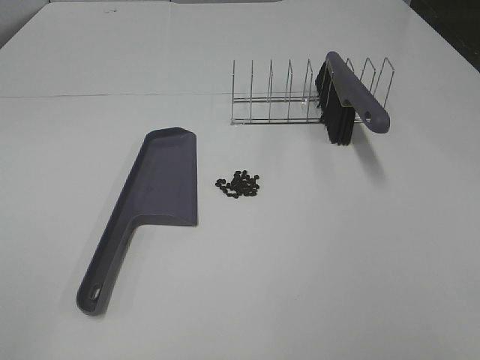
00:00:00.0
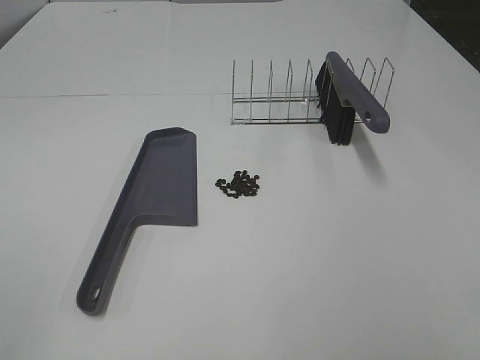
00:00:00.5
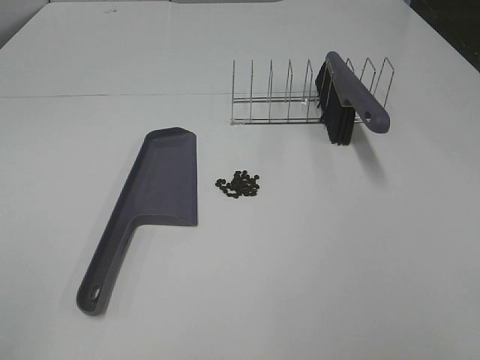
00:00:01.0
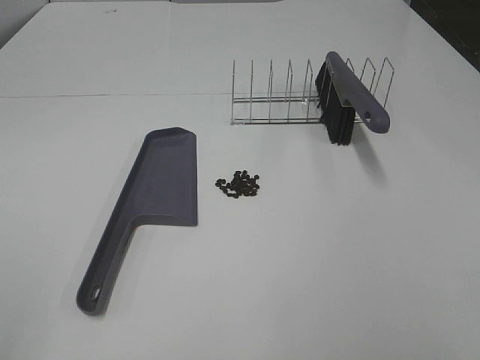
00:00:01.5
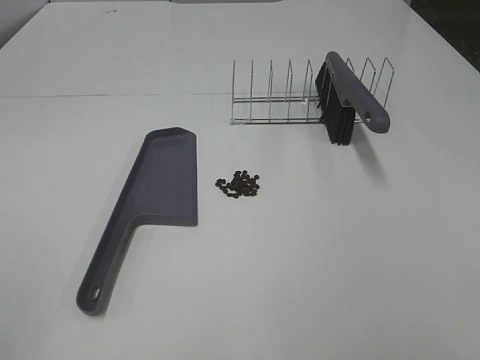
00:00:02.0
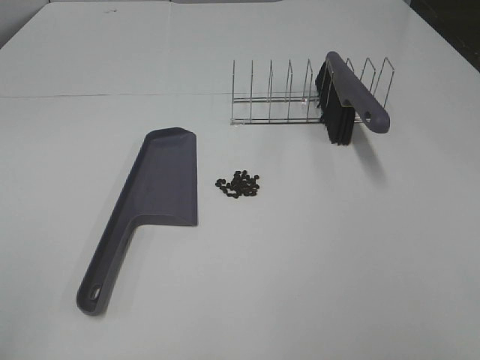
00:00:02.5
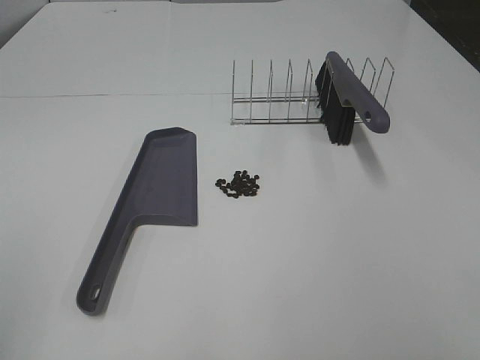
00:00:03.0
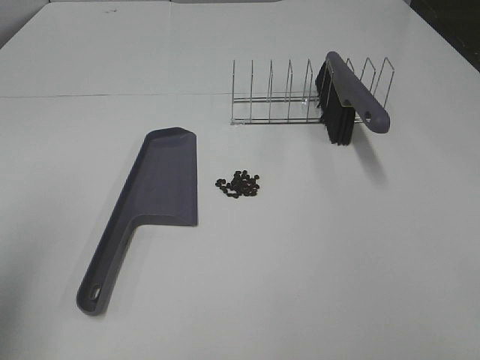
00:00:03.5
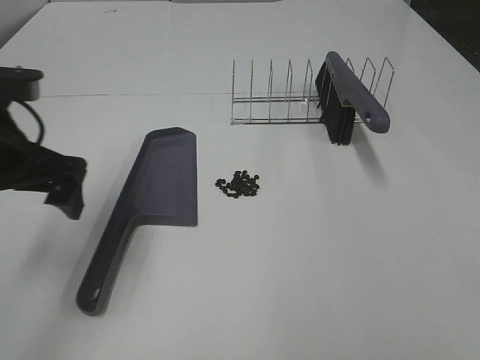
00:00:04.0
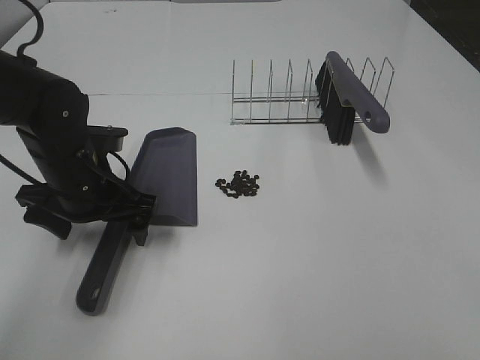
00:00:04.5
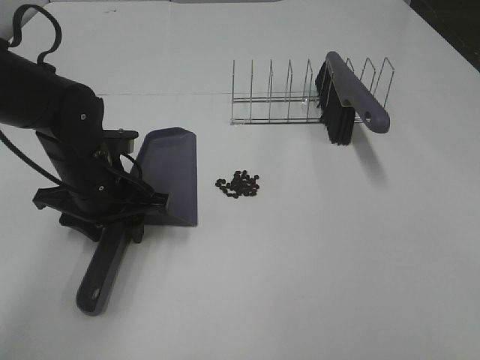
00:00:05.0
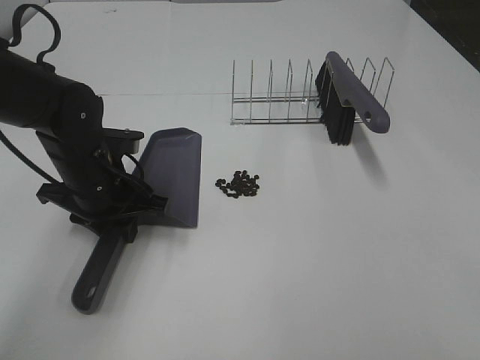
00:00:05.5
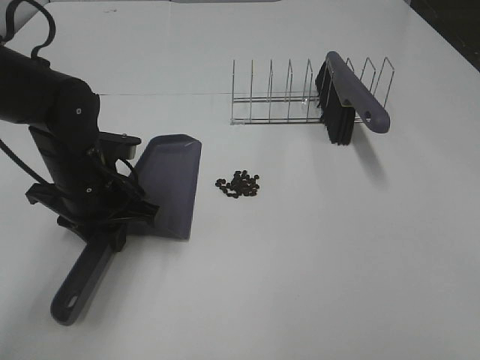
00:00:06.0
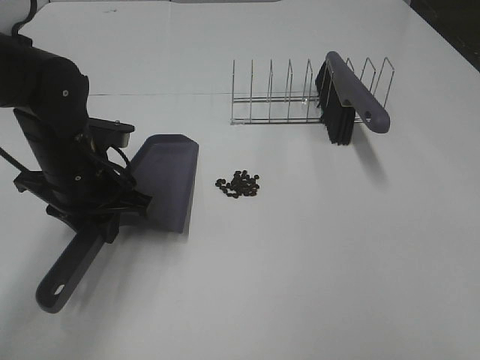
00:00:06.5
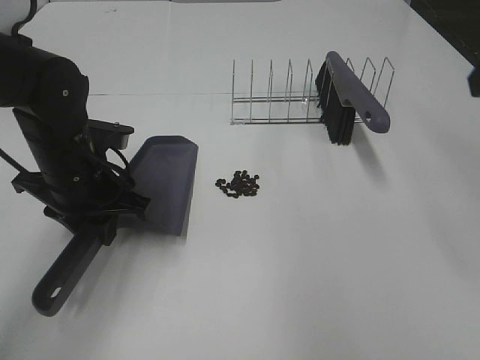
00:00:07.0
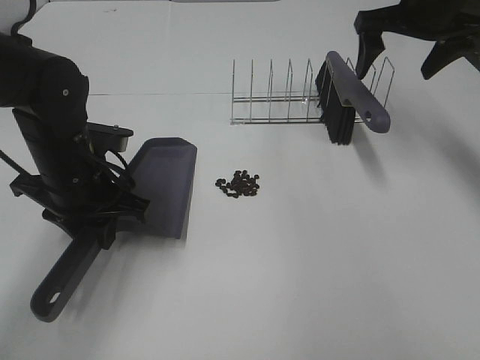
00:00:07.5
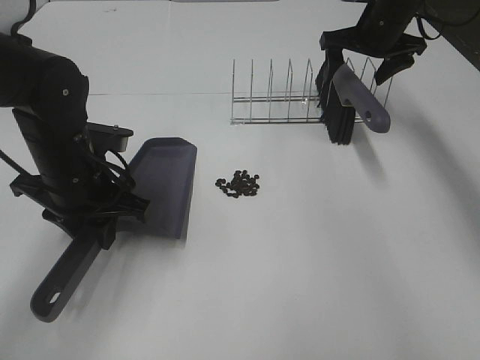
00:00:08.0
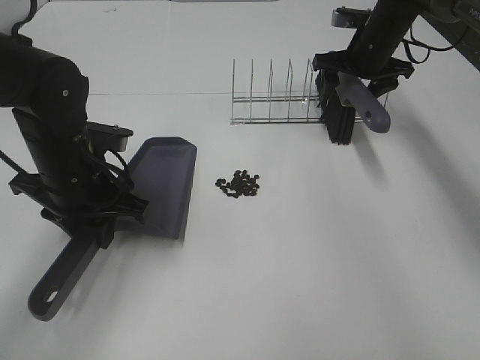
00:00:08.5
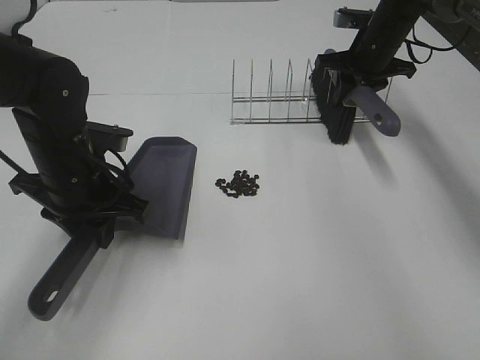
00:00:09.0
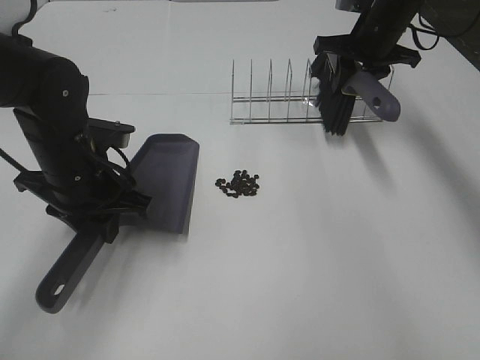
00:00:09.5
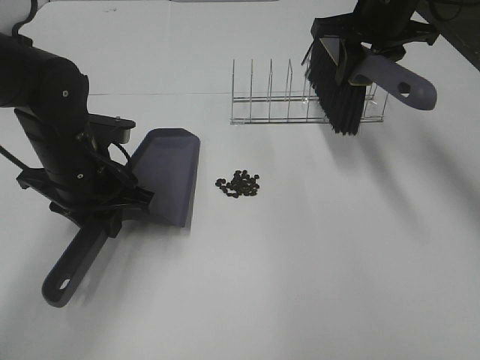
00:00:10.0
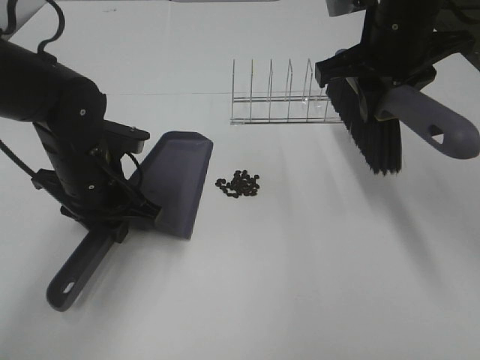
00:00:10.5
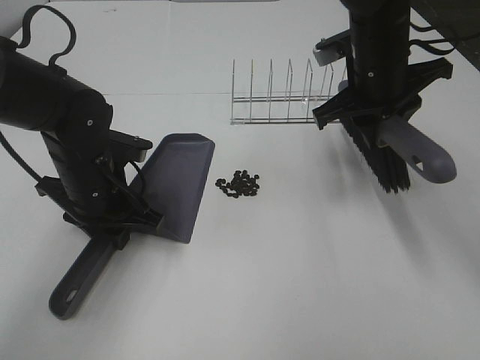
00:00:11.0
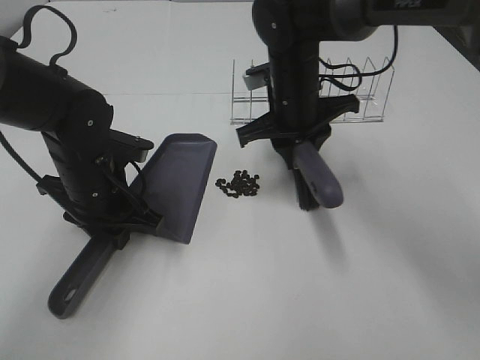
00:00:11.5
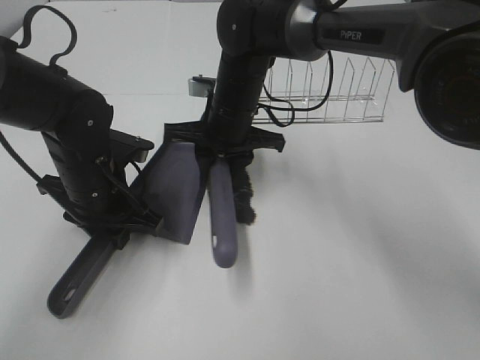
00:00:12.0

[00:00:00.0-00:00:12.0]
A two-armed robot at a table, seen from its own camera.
Task of the whole recording: Sweep Coffee Bean.
Step, 00:00:00.0 to 00:00:05.0: Left hand: grab the dustpan.
Step, 00:00:06.5 to 00:00:08.5: Right hand:grab the broom.
00:00:00.0 to 00:00:02.0: The two grippers keep their place.
00:00:02.0 to 00:00:04.0: The left gripper goes some 30 cm forward and to the right.
00:00:04.0 to 00:00:06.0: The left gripper moves downward and forward, approximately 10 cm, and closes.
00:00:06.0 to 00:00:08.0: The right gripper shifts some 50 cm forward.
00:00:08.0 to 00:00:10.0: The right gripper goes some 10 cm backward and upward, and closes.
00:00:10.0 to 00:00:12.0: The right gripper shifts about 25 cm to the left and downward.

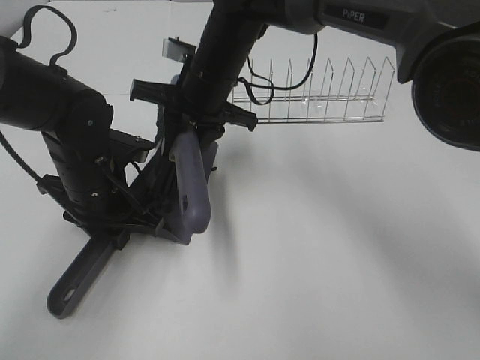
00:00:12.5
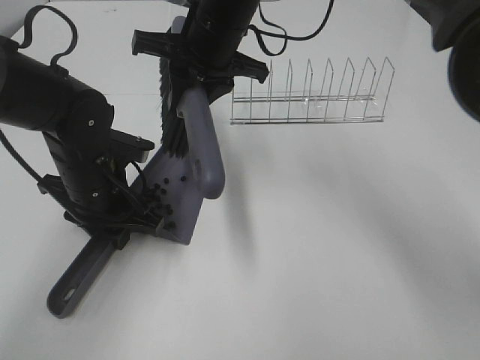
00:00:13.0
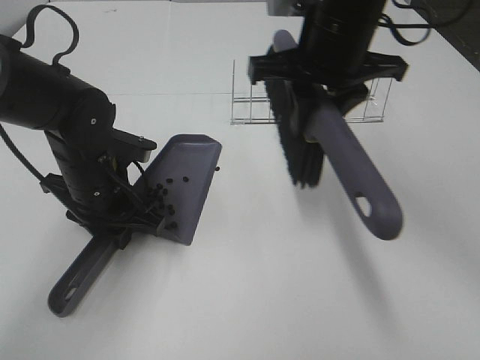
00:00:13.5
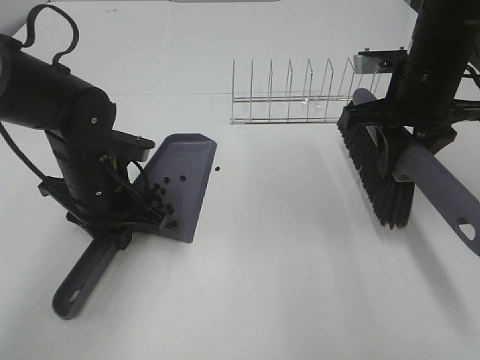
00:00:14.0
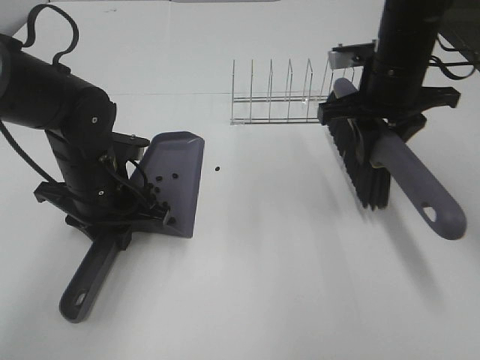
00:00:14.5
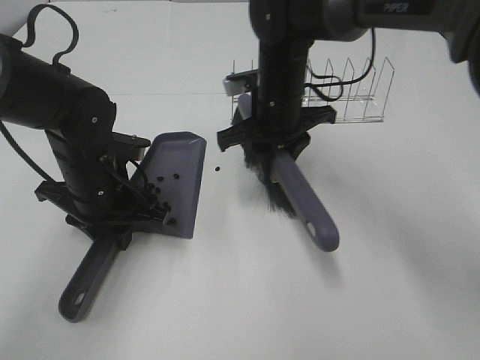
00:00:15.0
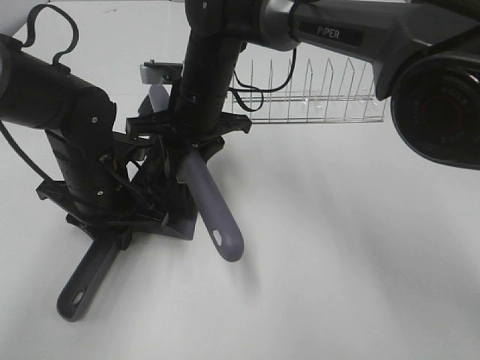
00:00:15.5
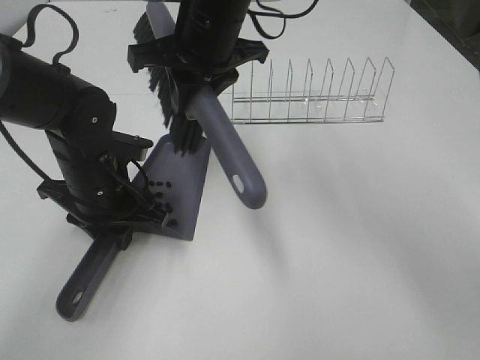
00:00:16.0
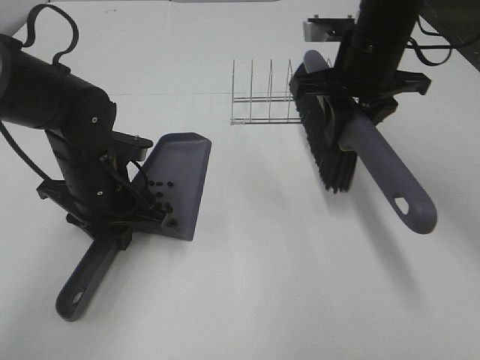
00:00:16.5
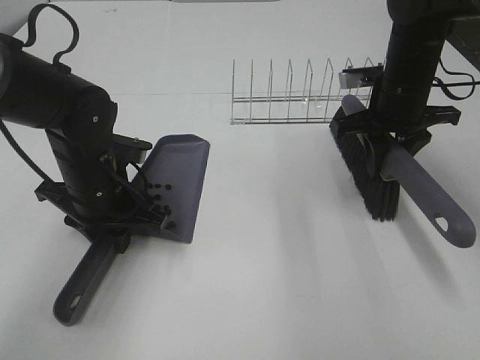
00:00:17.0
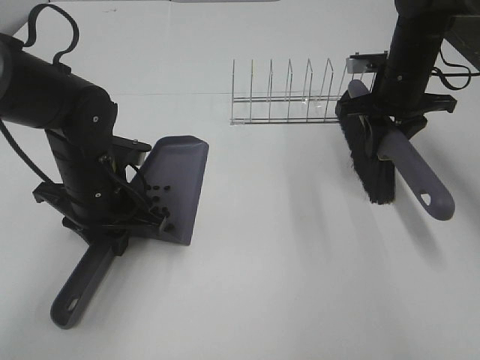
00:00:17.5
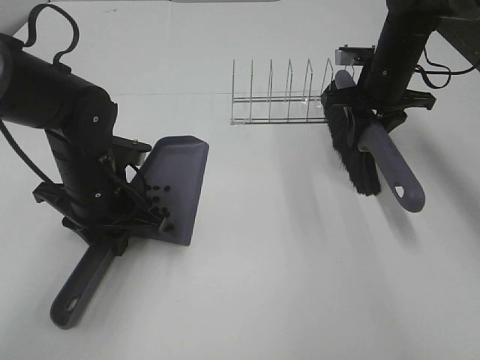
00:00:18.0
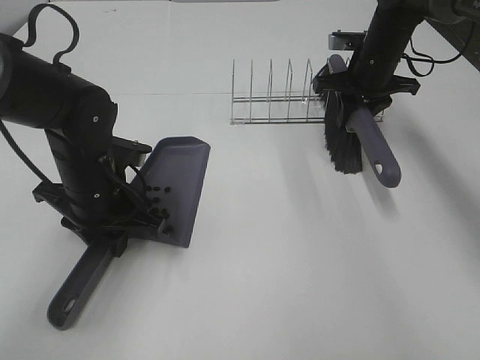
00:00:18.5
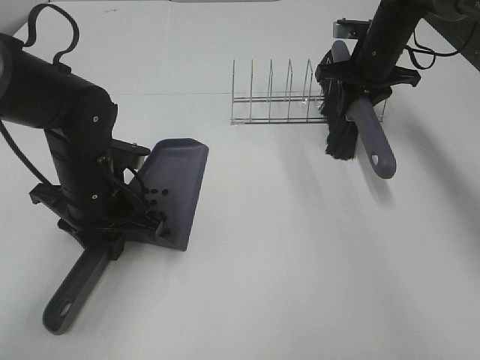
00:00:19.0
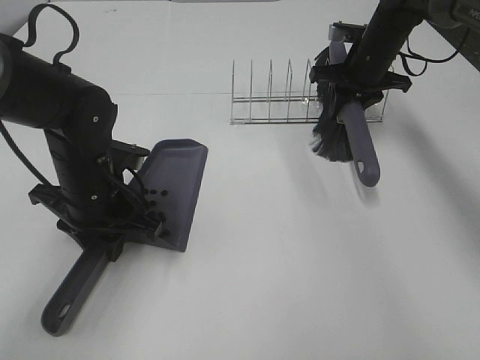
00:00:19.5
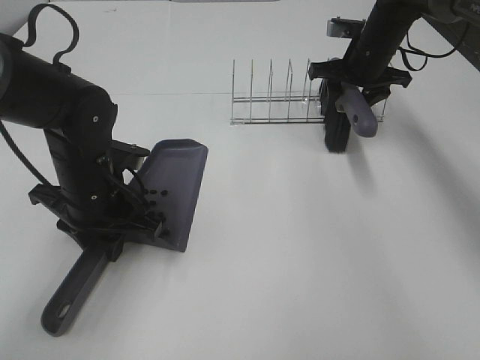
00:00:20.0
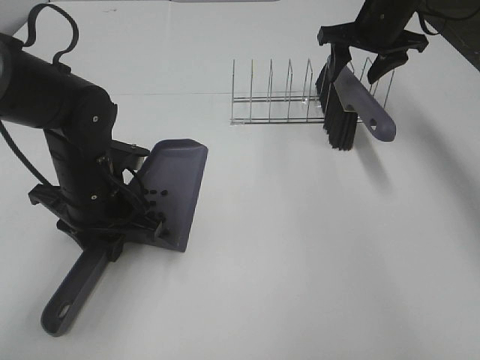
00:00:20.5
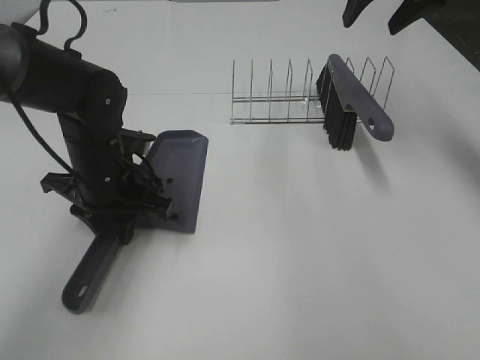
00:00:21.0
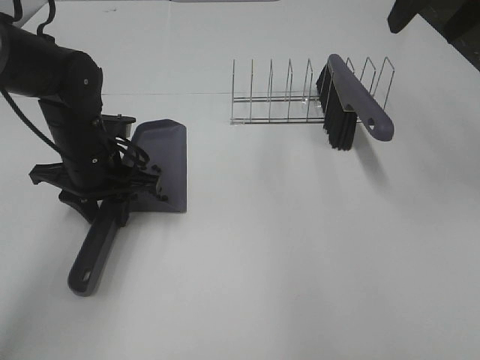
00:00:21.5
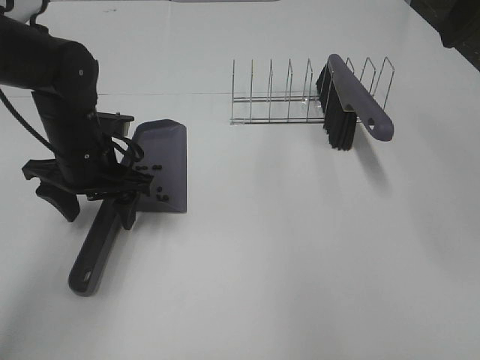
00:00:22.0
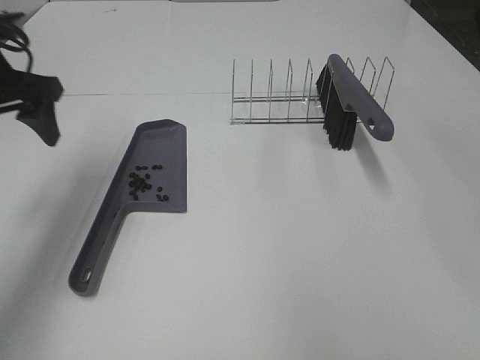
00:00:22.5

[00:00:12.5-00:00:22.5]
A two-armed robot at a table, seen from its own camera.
Task of the whole recording: Sweep Coffee Bean.
Step, 00:00:12.5 to 00:00:15.5: Right hand:sweep the coffee beans into the dustpan.
Step, 00:00:16.0 to 00:00:20.0: Right hand:place the broom on the rack.
Step, 00:00:20.5 to 00:00:21.5: Left hand:place the dustpan on the table.
00:00:12.5 to 00:00:14.5: The right gripper goes about 20 cm to the right.
00:00:14.5 to 00:00:16.5: The right gripper reaches about 20 cm to the left, then returns.
00:00:16.5 to 00:00:18.5: The right gripper travels forward, downward and to the right by roughly 15 cm.
00:00:18.5 to 00:00:20.5: The right gripper heads upward, covering about 5 cm, and opens.
00:00:20.5 to 00:00:22.5: The right gripper shifts about 35 cm backward and upward. Meanwhile the left gripper travels upward and to the left by approximately 20 cm, and opens up.

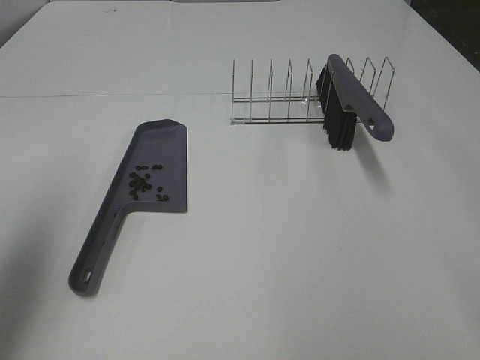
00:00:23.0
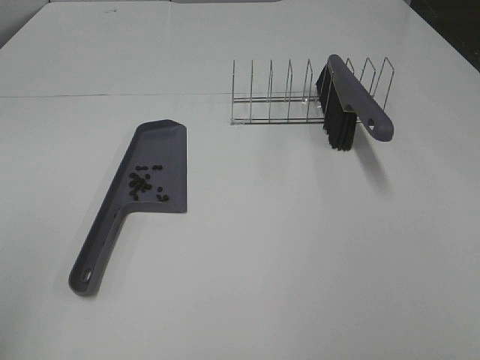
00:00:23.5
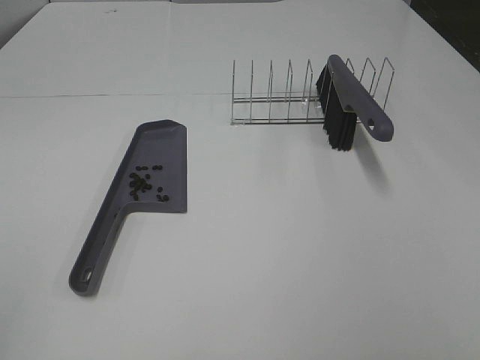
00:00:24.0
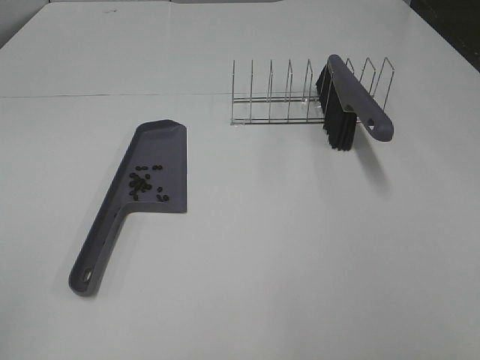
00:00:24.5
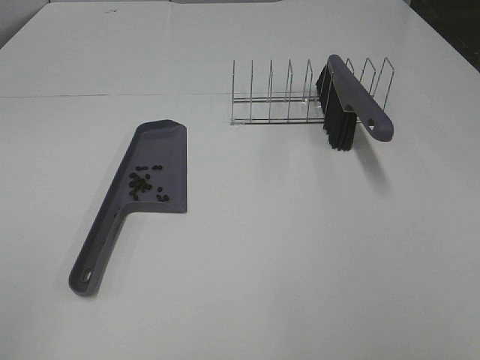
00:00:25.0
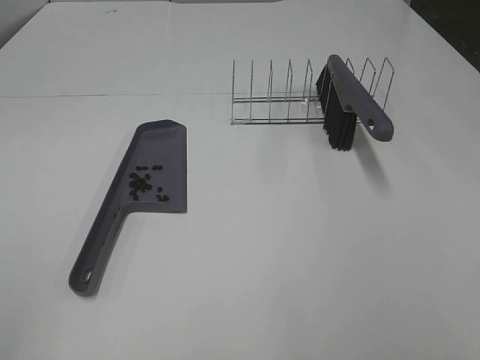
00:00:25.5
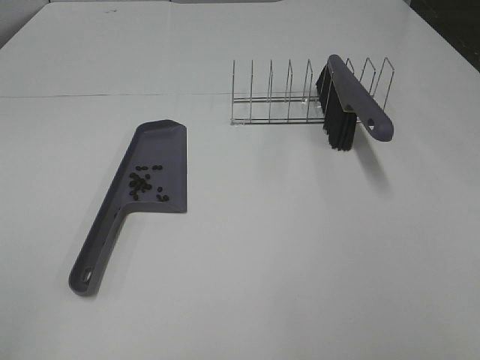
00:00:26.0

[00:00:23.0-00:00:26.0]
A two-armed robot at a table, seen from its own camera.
Task of the whole recording: Sweep Coffee Bean.
00:00:23.0 to 00:00:24.5: The left gripper is displaced backward by approximately 20 cm.
